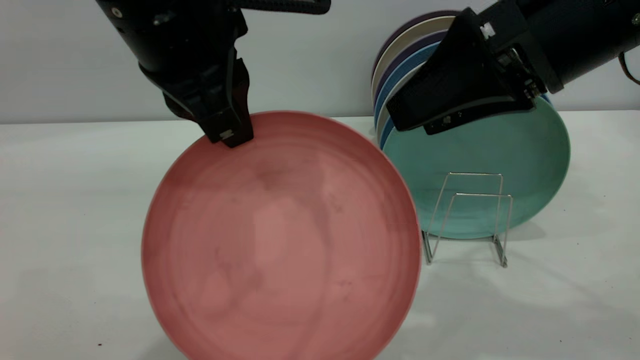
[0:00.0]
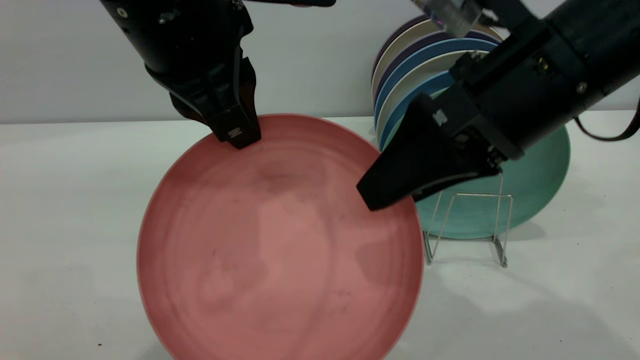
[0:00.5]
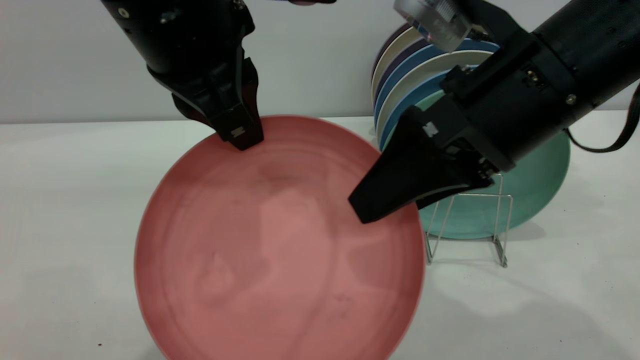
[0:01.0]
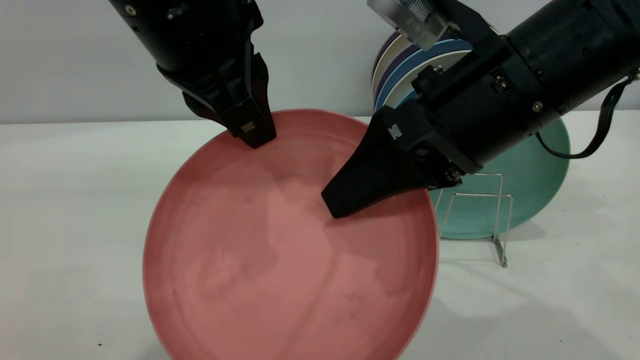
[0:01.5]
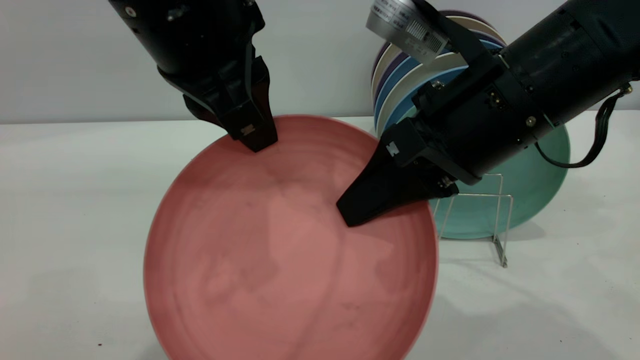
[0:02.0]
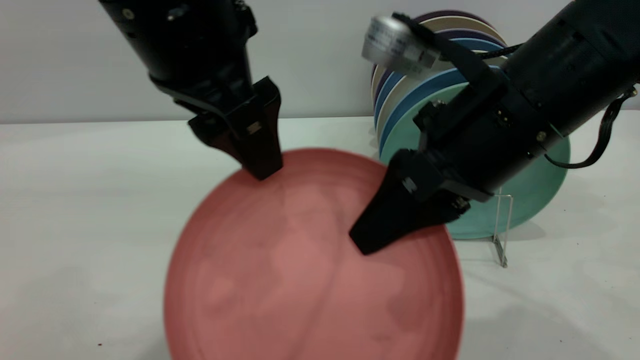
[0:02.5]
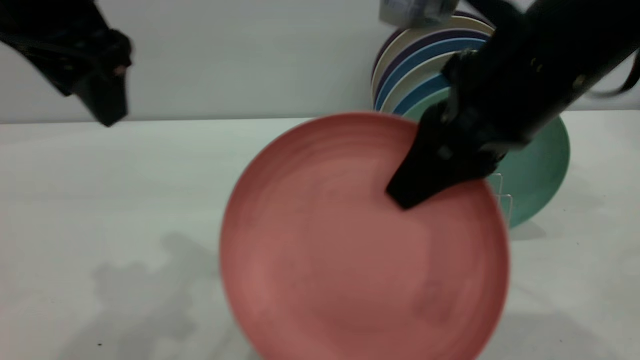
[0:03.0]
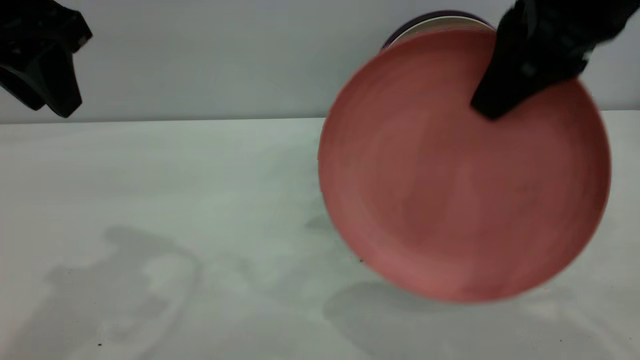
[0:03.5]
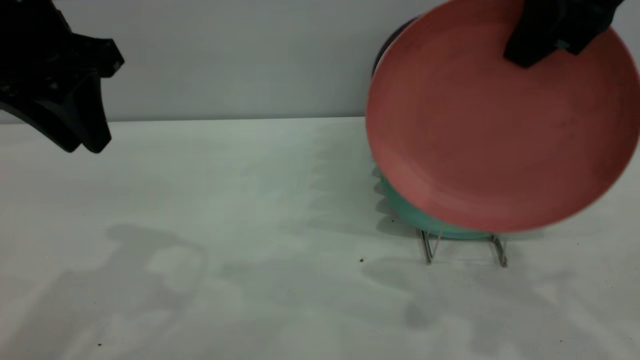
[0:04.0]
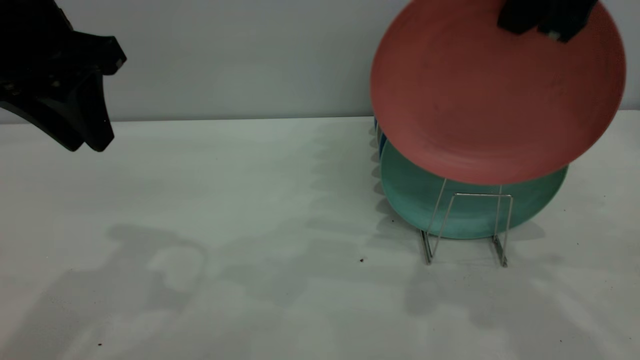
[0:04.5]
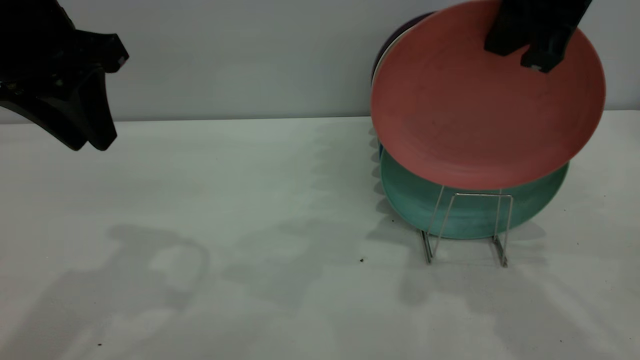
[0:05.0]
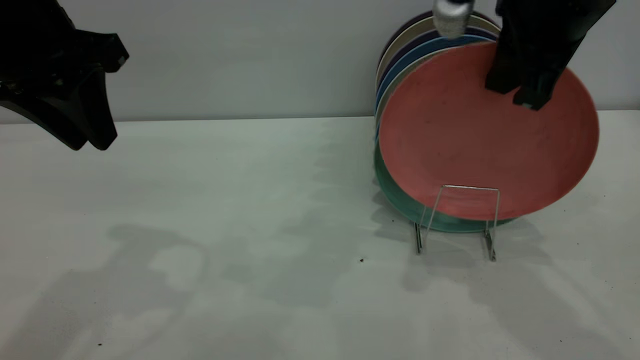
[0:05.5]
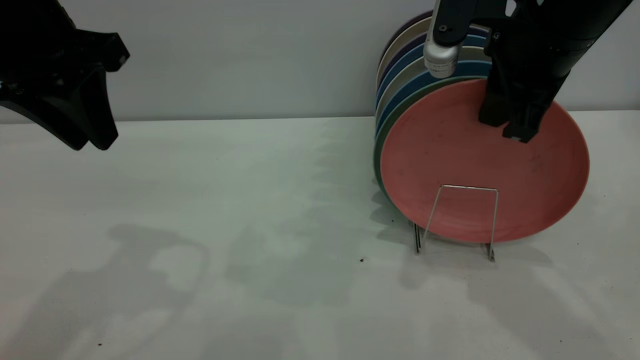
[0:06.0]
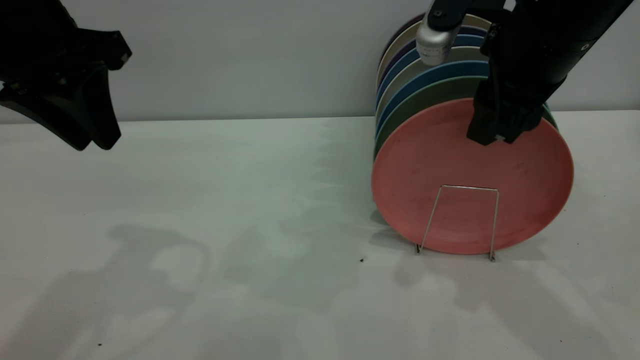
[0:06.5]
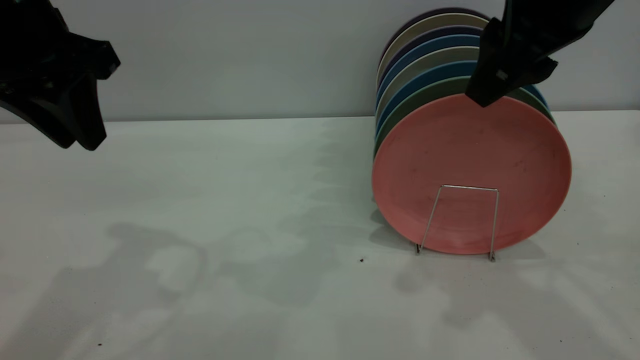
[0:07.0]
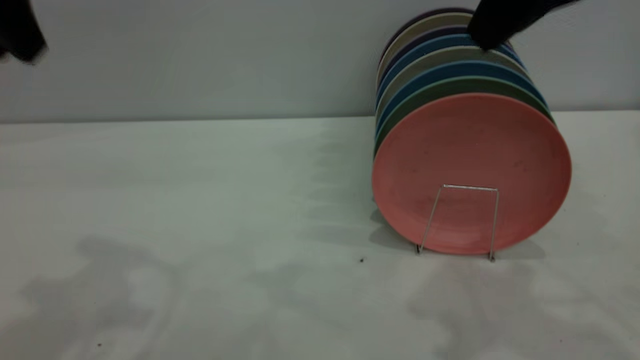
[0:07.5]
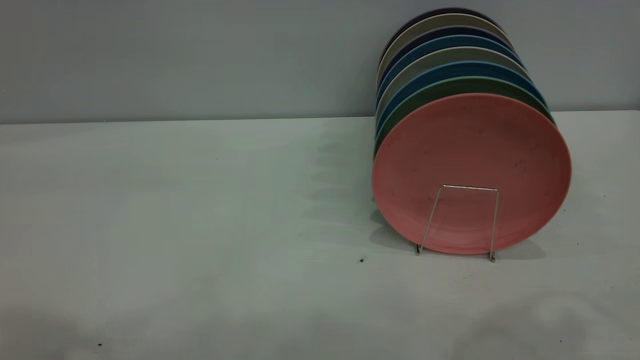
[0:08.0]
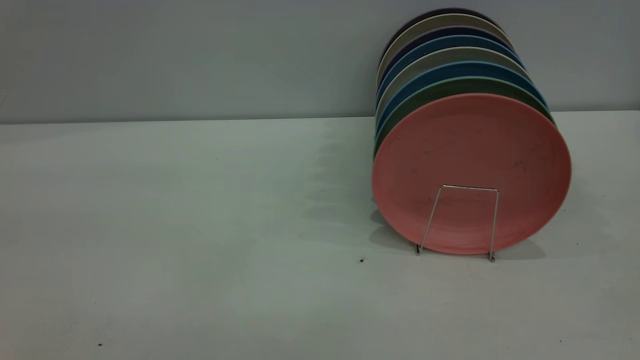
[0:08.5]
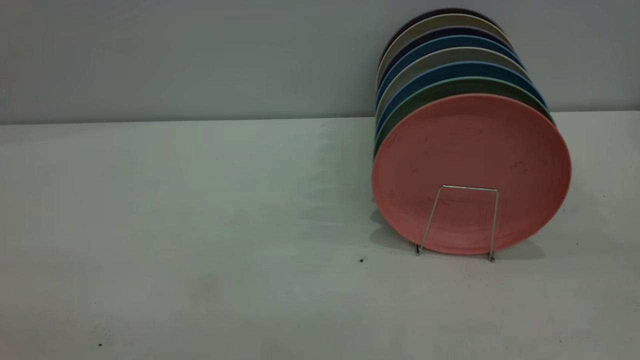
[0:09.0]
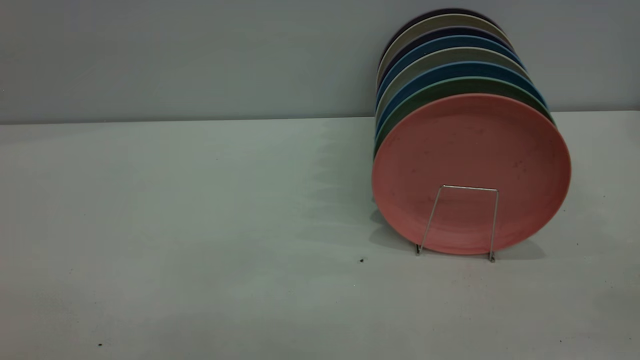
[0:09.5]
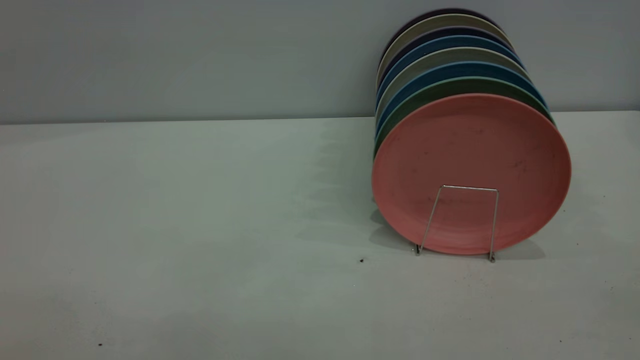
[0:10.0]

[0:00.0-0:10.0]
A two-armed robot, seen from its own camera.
Task of the whole recording: put the plate on the plate rack.
Step, 0:00.0 to 0:02.5: Pass the plate from the left gripper to the right gripper.
Step, 0:03.0 to 0:07.5: Place the plate on the shelf.
0:00.0 to 0:02.0: The right gripper heads downward and to the left, covering some 5 cm, and closes.
0:02.0 to 0:04.0: The right gripper is displaced upward and to the right by about 15 cm, while the left gripper travels to the left by approximately 15 cm, and opens up.
0:04.0 to 0:06.0: The right gripper is displaced downward and forward by about 10 cm.
0:06.0 to 0:08.0: The two grippers go roughly 20 cm upward and backward. The right gripper opens its fingers.

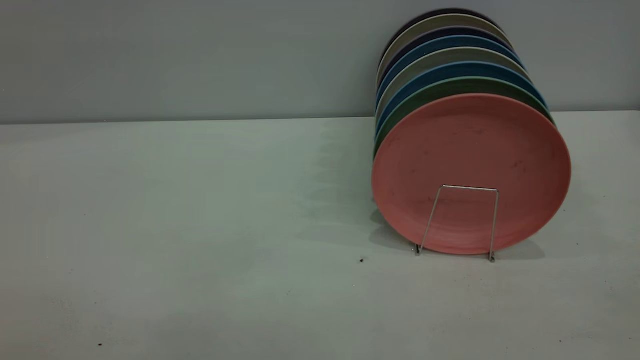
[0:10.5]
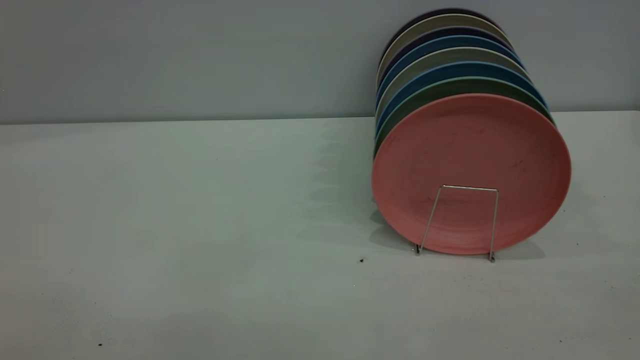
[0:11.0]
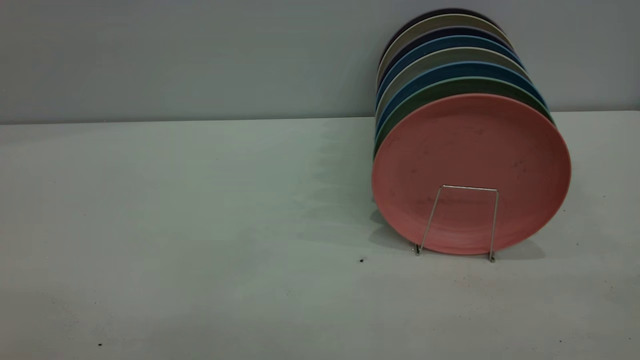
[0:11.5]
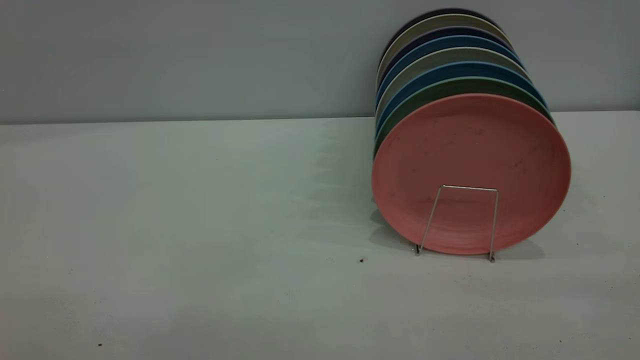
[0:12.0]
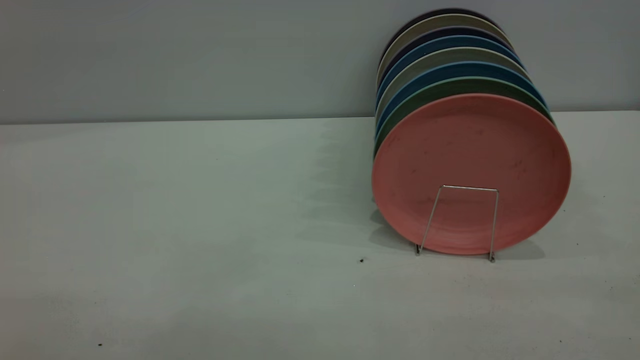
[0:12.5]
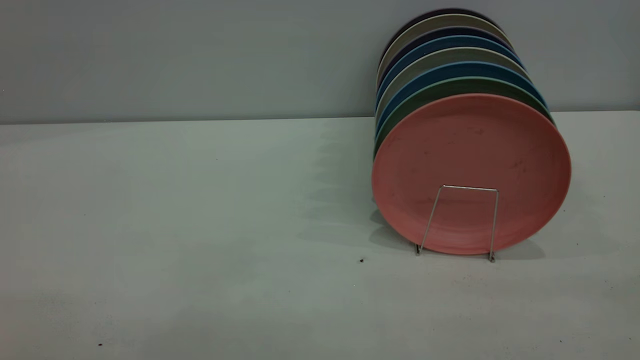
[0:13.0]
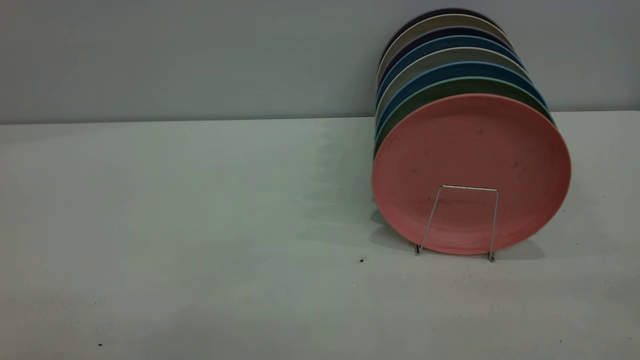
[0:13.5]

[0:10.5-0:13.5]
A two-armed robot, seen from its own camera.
Task of the whole recording: put the plate on the plate rack.
0:12.0 to 0:13.5: Both grippers stay put.
